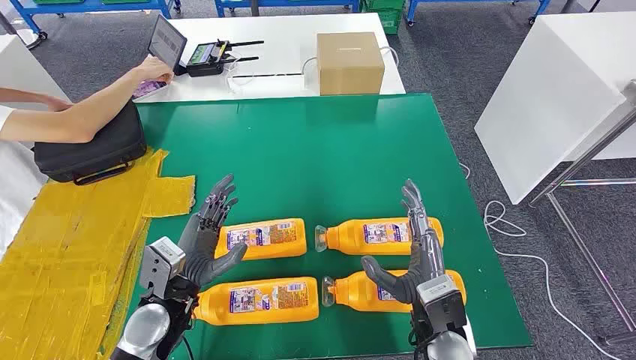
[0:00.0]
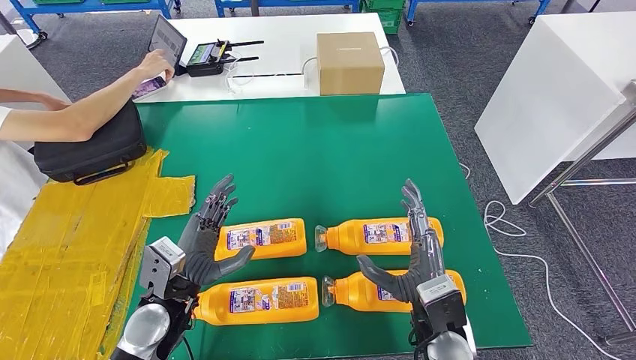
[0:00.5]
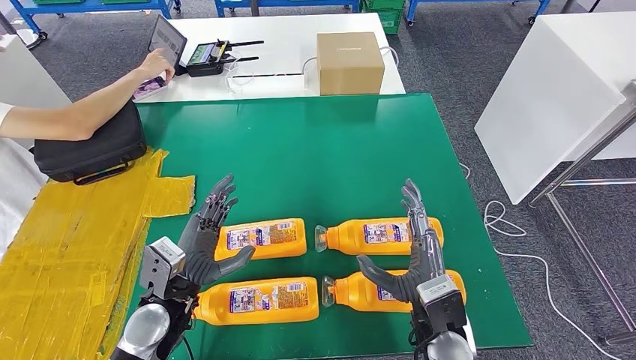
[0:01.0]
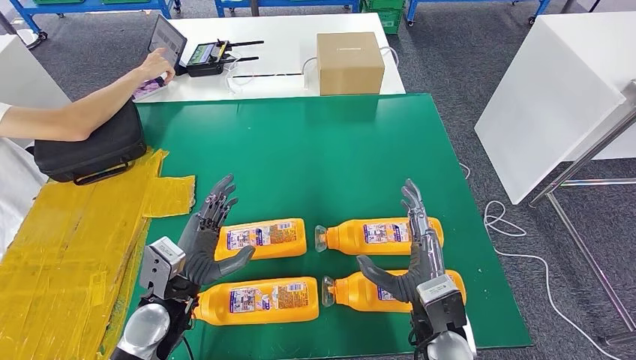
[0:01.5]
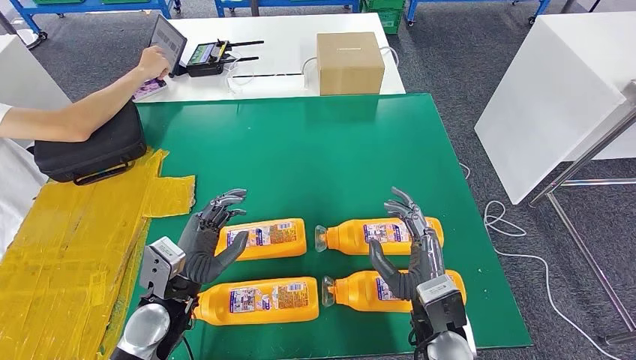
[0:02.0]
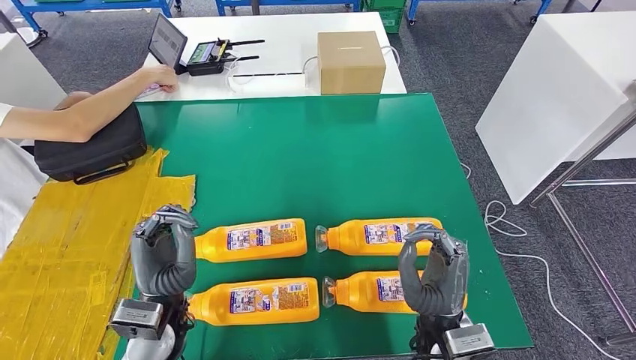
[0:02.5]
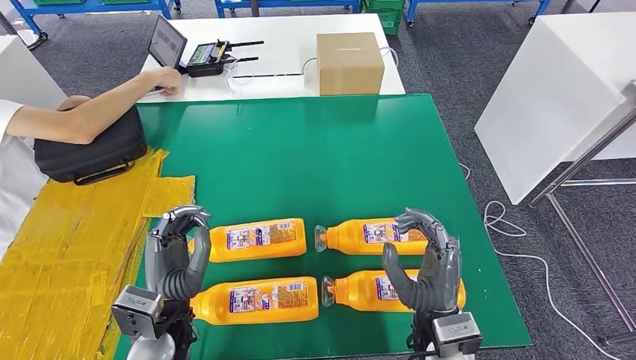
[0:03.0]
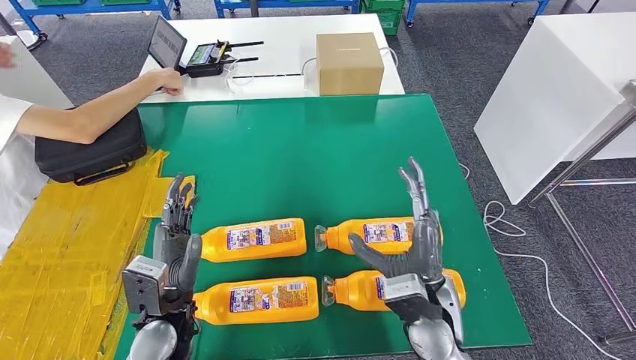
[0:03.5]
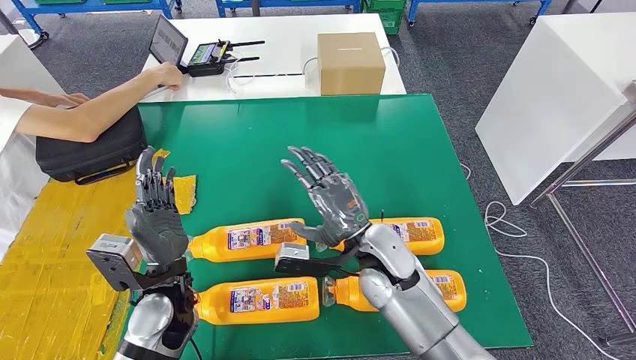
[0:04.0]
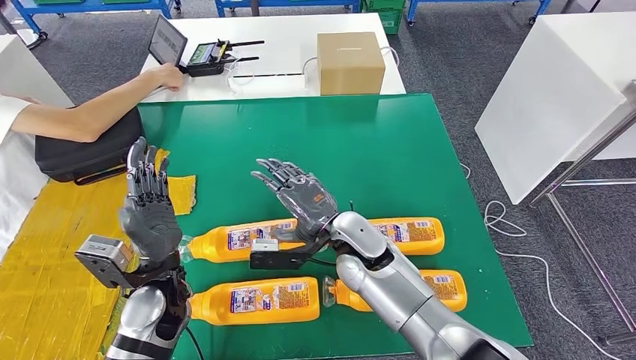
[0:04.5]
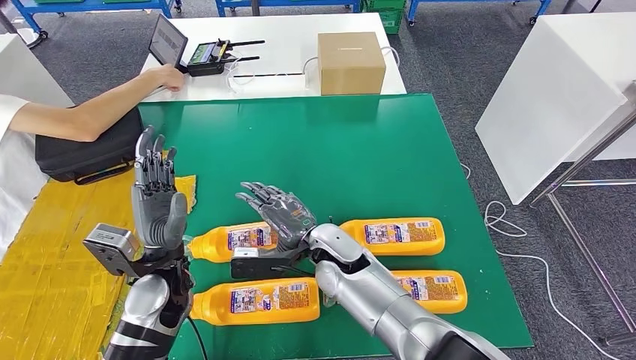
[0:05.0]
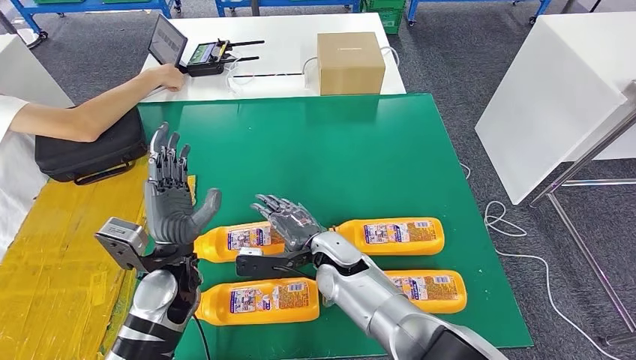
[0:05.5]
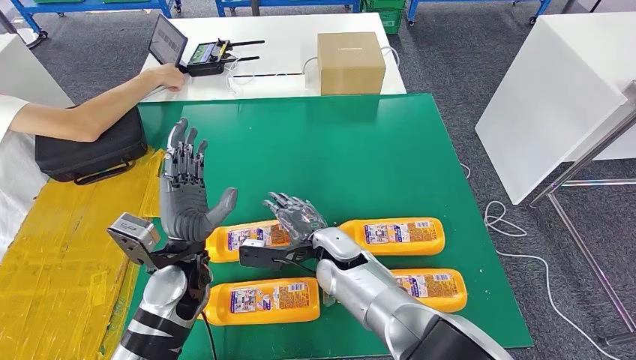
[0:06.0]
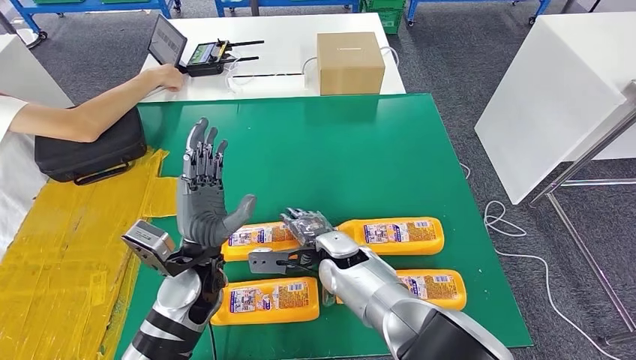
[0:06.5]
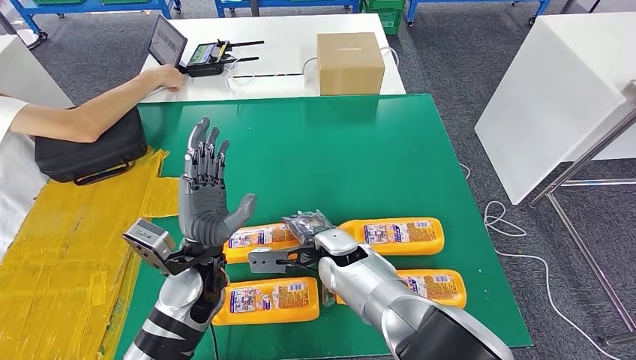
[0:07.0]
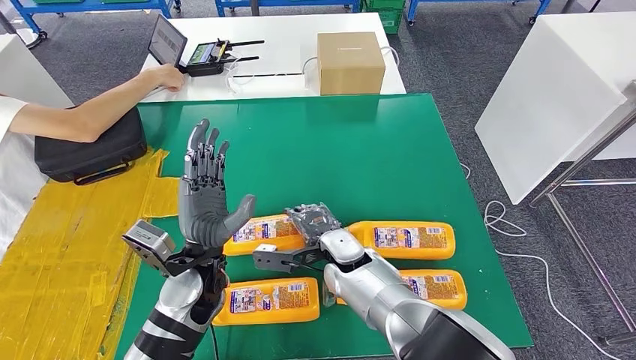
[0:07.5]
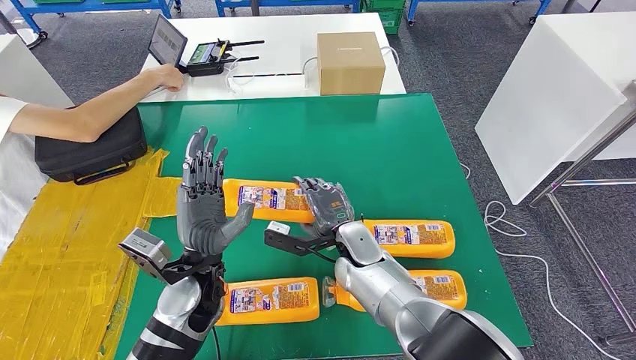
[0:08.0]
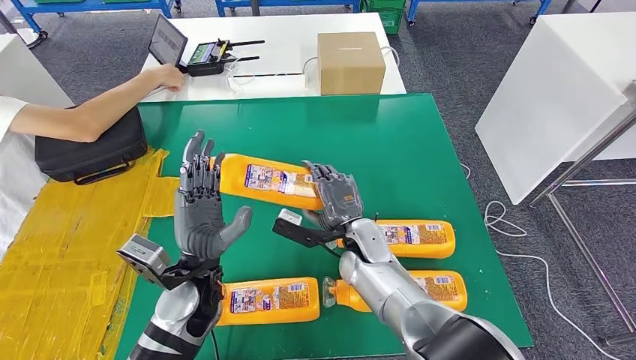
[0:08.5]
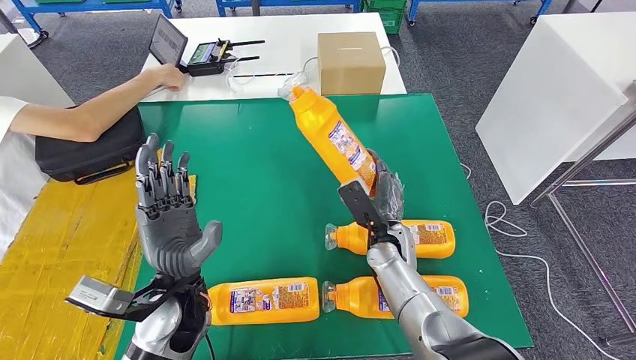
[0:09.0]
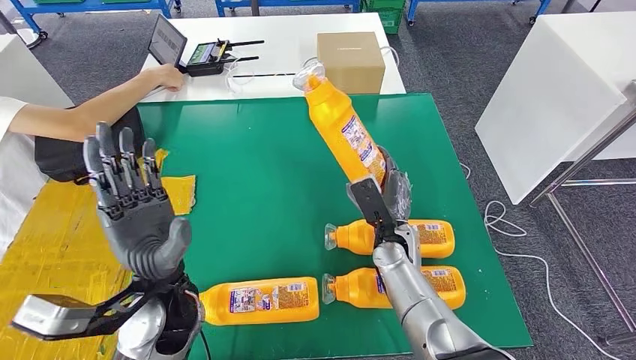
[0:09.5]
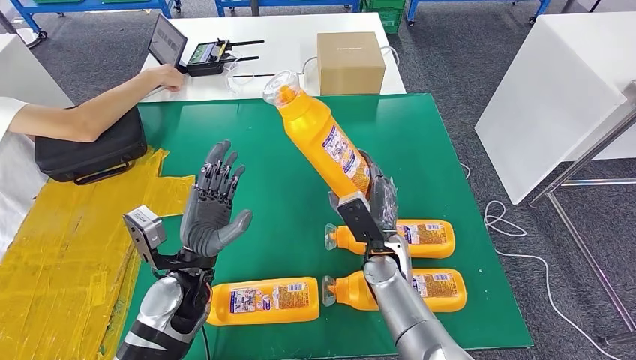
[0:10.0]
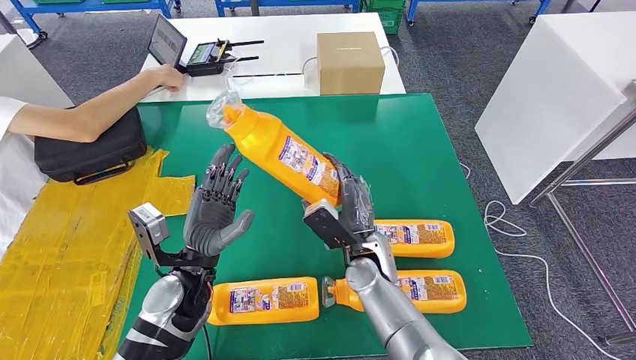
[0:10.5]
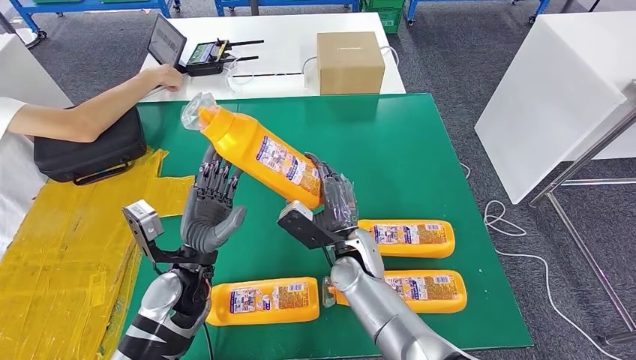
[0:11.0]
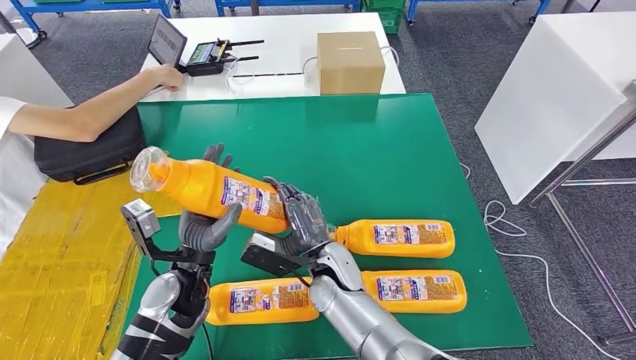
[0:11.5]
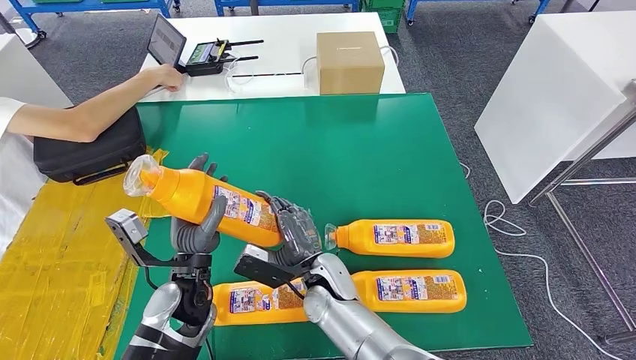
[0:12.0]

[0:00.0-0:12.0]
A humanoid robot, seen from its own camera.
Step, 0:00.0 to 0:09.5: Take the fast-moving consumer goods bottle from the table.
0:02.0 to 0:04.0: The right hand moves forward and to the left, some 15 cm.
0:04.0 to 0:06.0: The right hand goes approximately 10 cm to the left and downward.
0:08.0 to 0:10.0: The right hand is displaced to the right by some 5 cm.
0:10.0 to 0:12.0: The right hand moves to the left, some 10 cm.

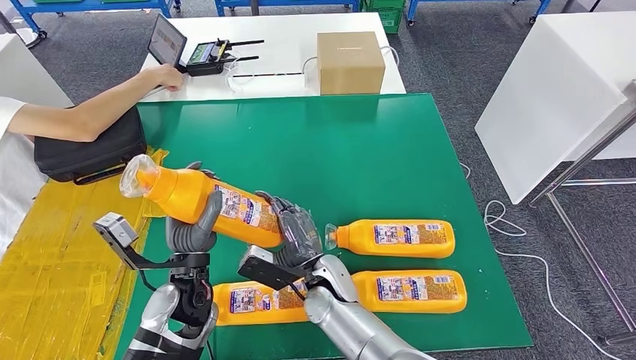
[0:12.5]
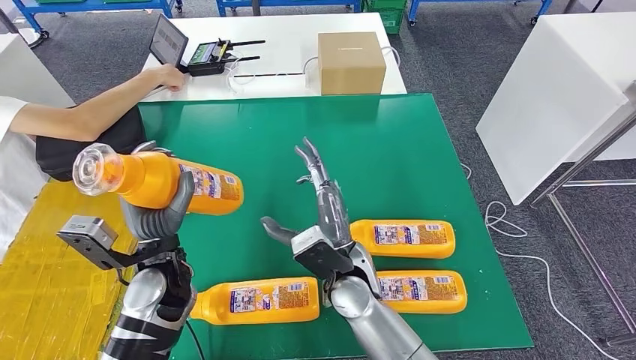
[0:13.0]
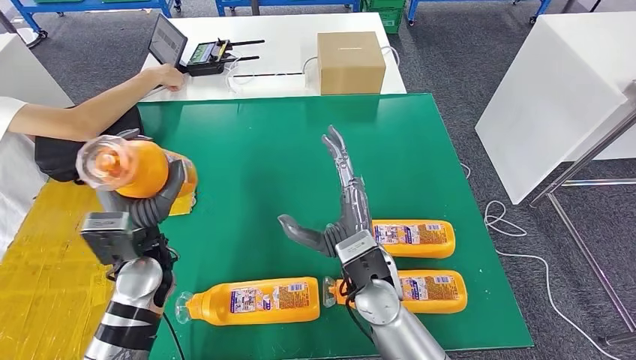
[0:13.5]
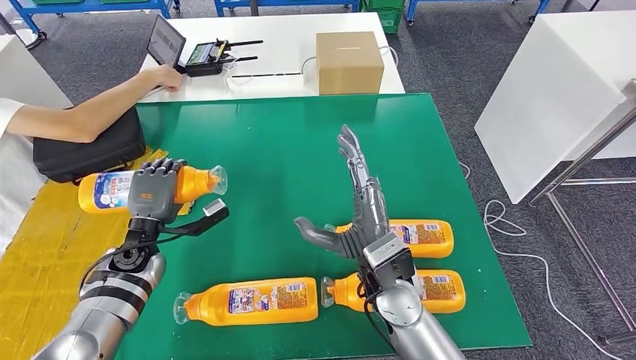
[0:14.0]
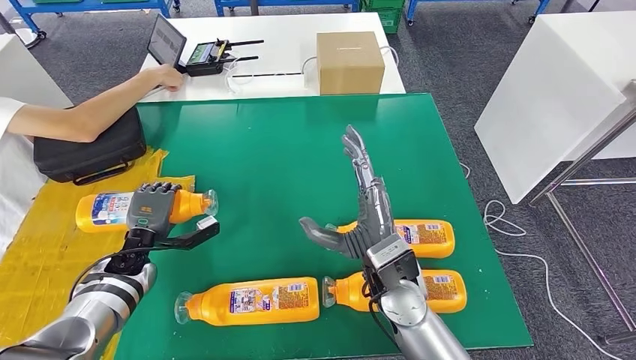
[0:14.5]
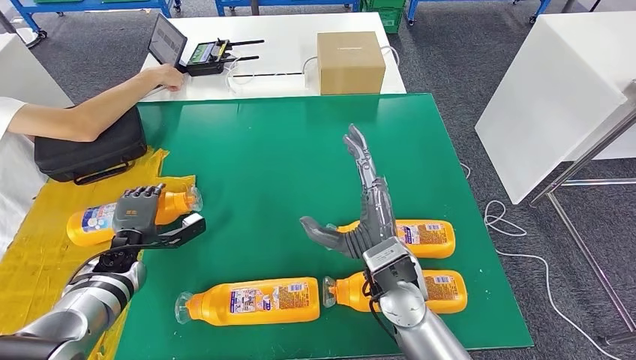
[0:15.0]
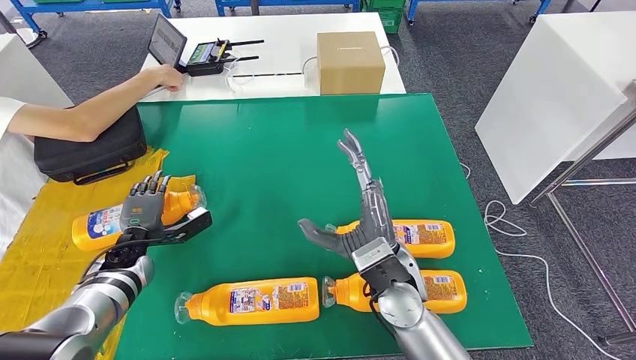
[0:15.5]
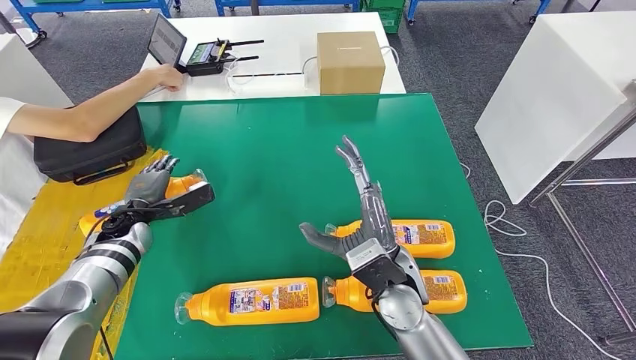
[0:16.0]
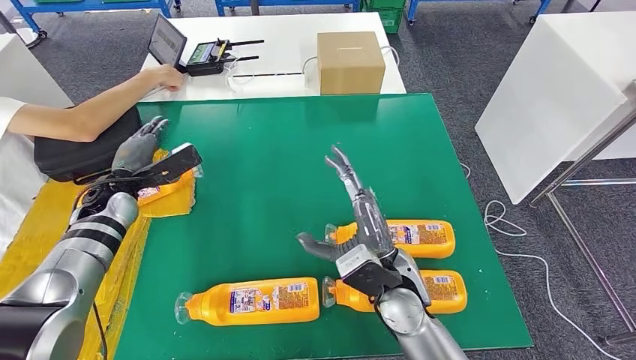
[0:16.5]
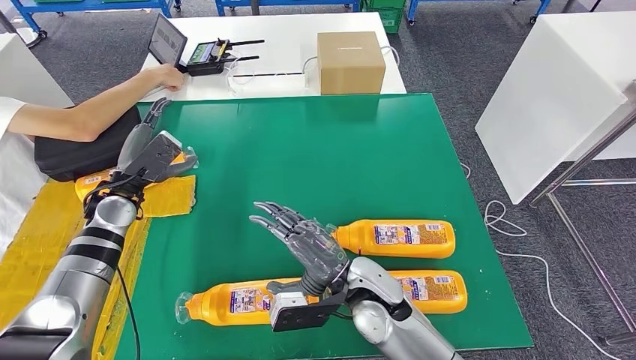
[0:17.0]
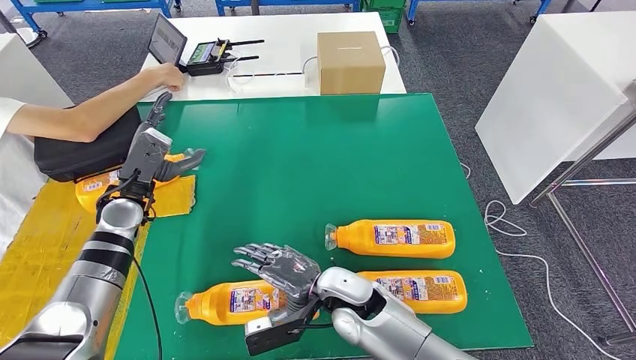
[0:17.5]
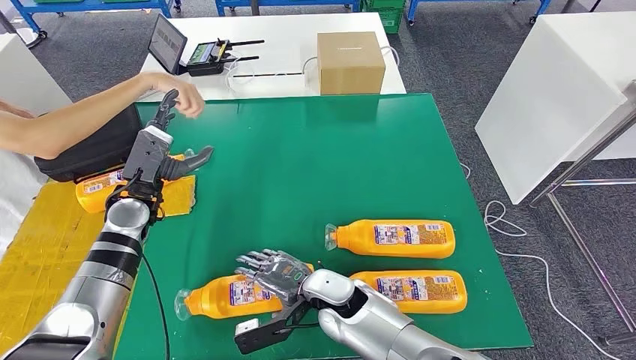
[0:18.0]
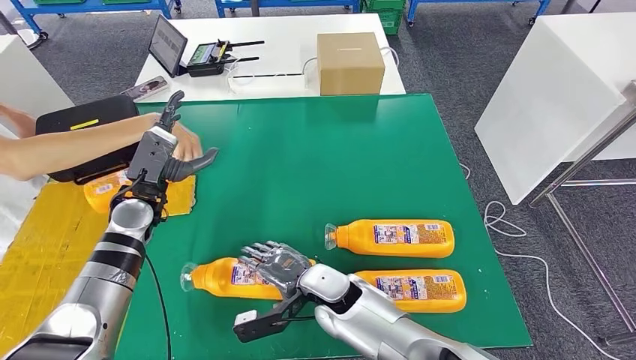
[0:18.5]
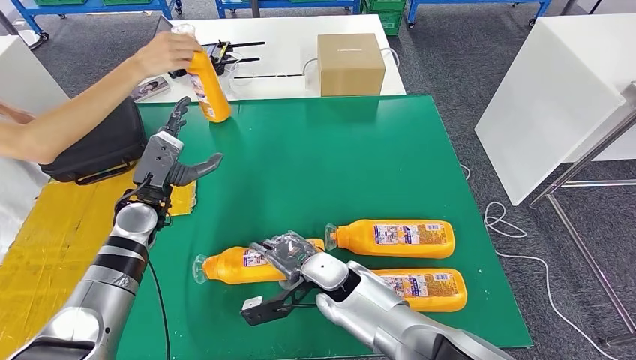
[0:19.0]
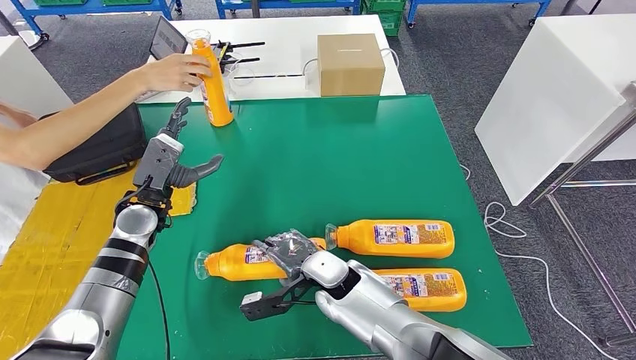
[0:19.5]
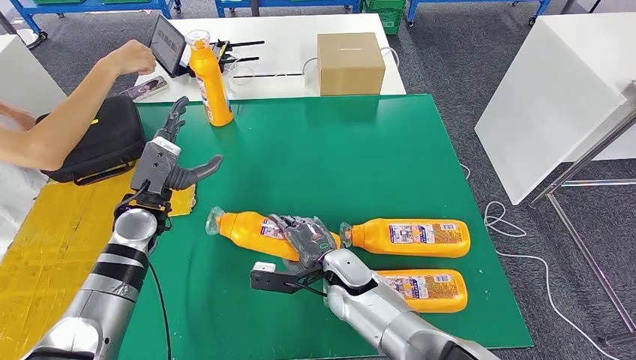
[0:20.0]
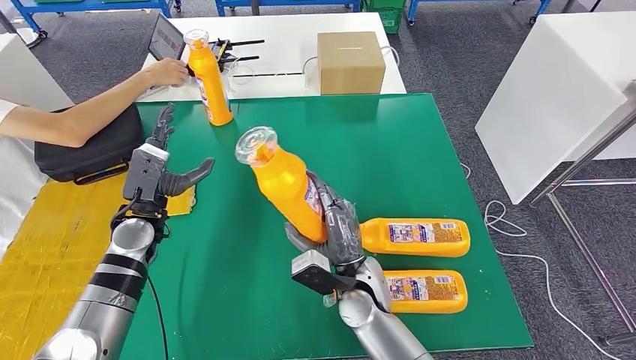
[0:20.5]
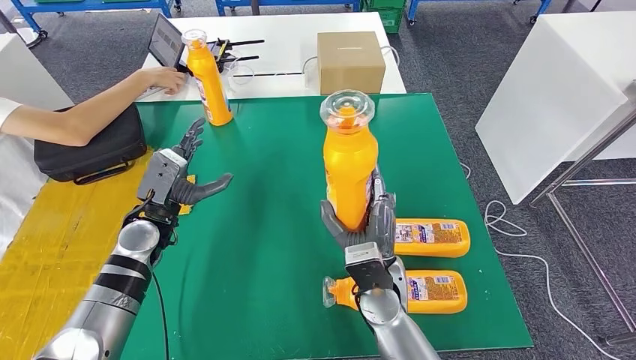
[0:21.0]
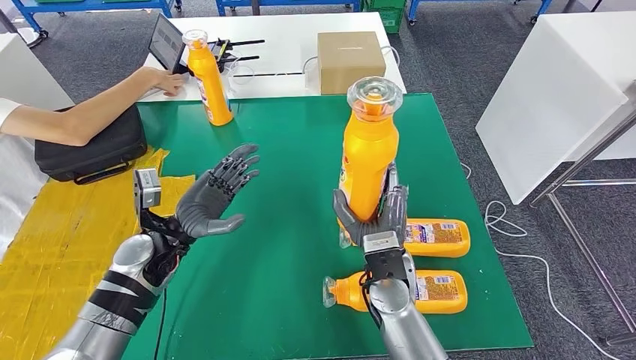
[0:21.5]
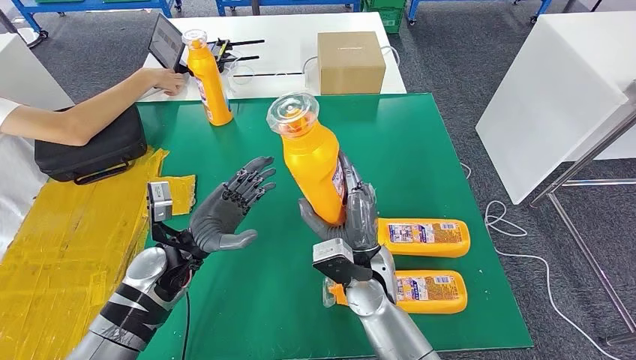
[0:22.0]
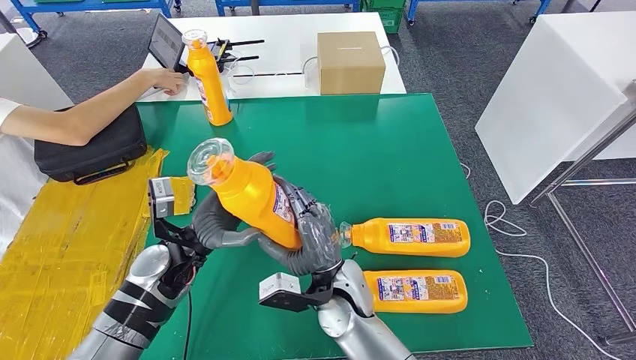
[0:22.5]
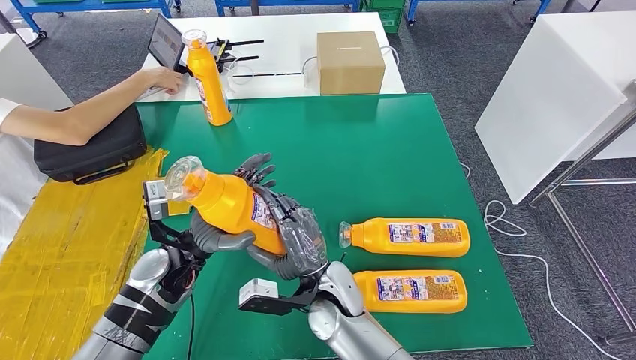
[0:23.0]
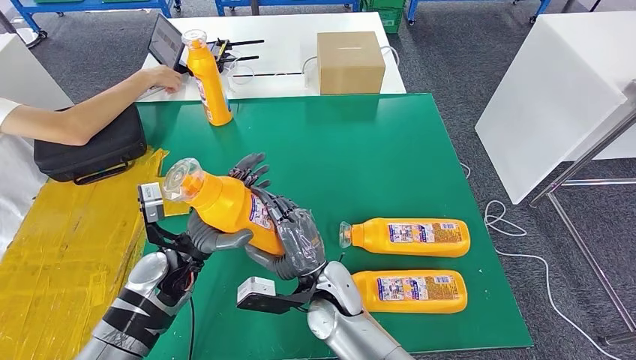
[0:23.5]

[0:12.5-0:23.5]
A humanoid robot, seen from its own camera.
Step, 0:14.5 to 0:21.0: Pick up the fast-moving consumer goods bottle from the table.
0:12.5 to 0:14.5: The left hand moves to the left, forward and downward, approximately 20 cm. The right hand goes roughly 15 cm upward and to the right.
0:14.5 to 0:16.0: The left hand moves some 5 cm.
0:16.0 to 0:18.0: The right hand shifts about 15 cm downward and to the left. Meanwhile the left hand heads upward and to the right, covering about 10 cm.
0:21.5 to 0:23.5: The right hand travels to the left by about 10 cm.
